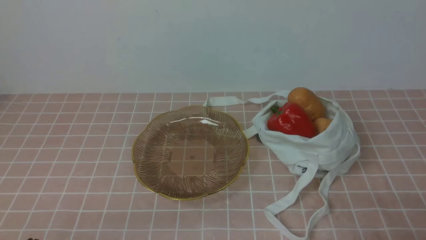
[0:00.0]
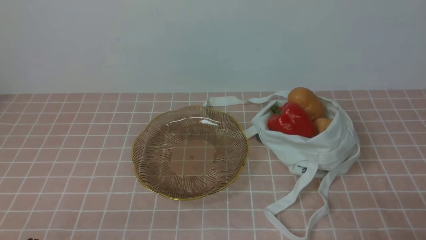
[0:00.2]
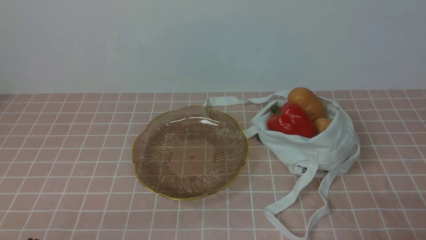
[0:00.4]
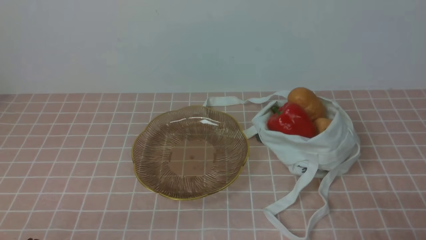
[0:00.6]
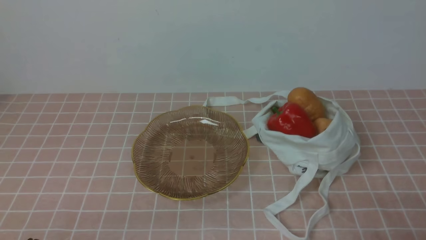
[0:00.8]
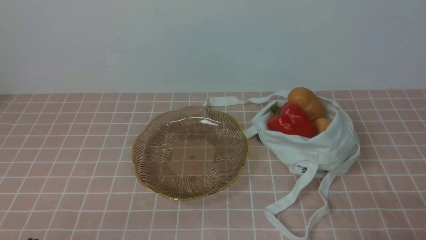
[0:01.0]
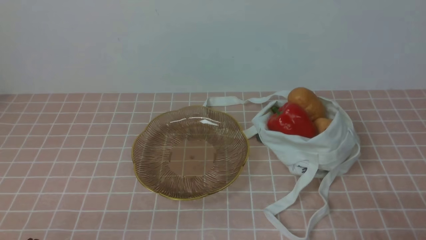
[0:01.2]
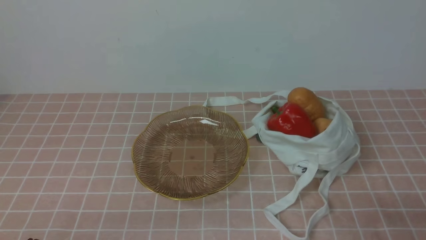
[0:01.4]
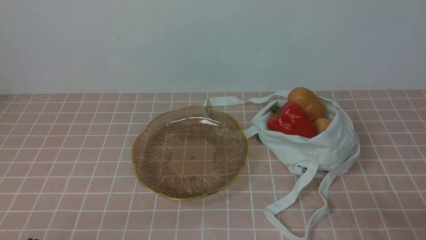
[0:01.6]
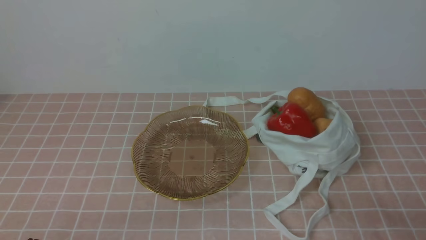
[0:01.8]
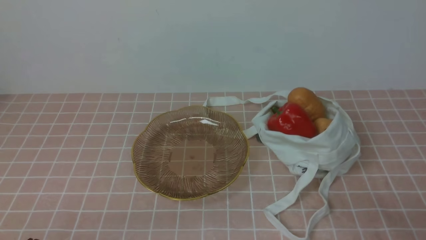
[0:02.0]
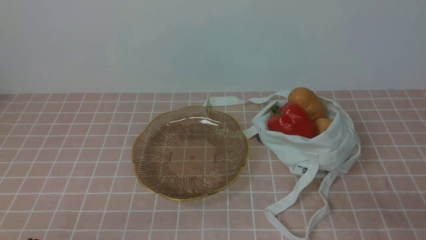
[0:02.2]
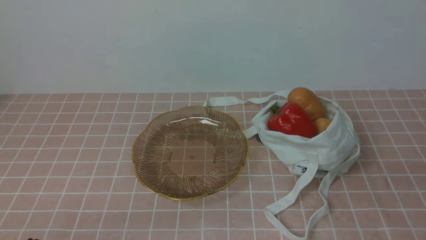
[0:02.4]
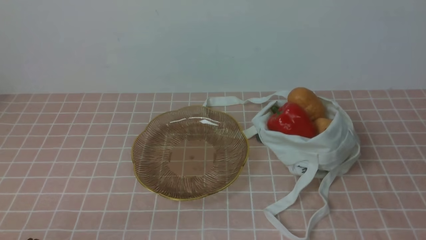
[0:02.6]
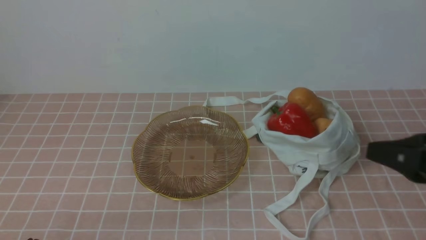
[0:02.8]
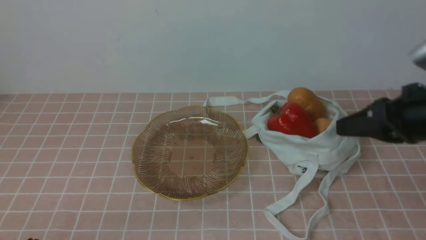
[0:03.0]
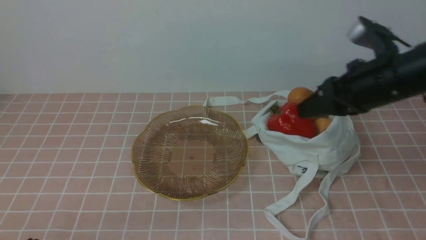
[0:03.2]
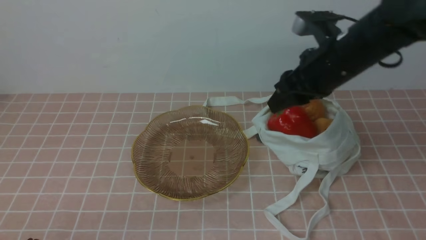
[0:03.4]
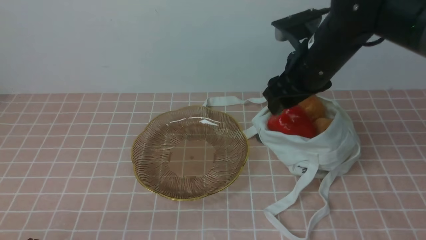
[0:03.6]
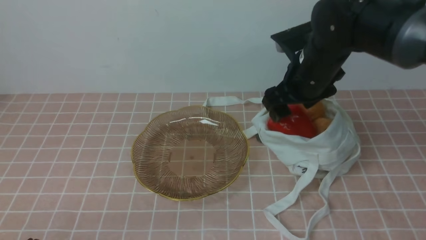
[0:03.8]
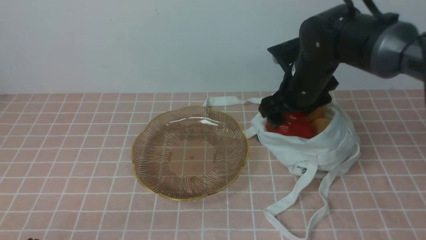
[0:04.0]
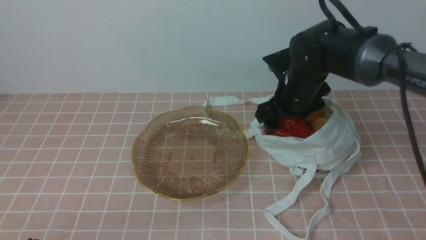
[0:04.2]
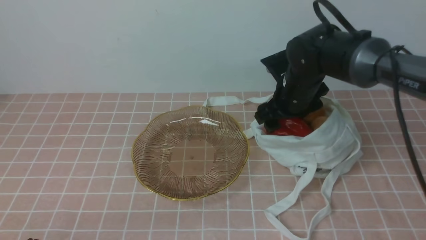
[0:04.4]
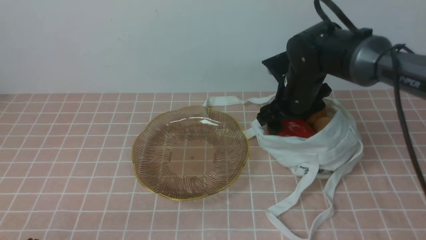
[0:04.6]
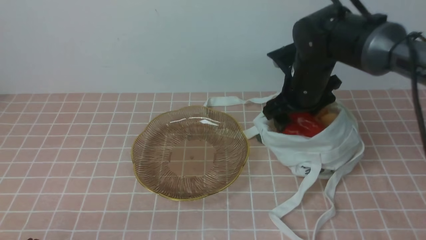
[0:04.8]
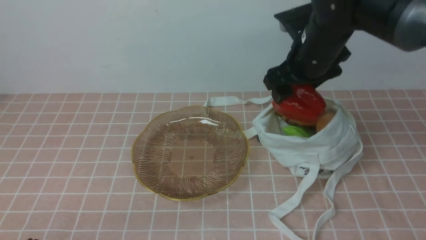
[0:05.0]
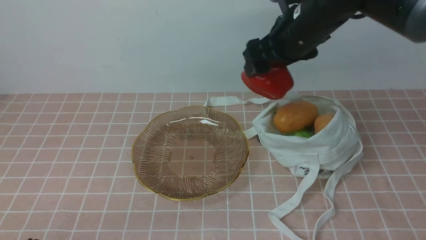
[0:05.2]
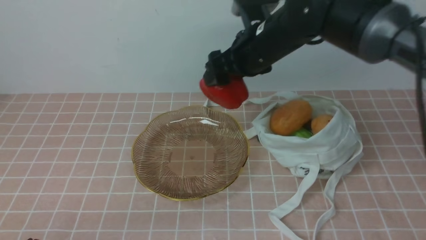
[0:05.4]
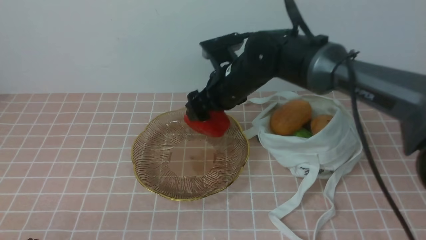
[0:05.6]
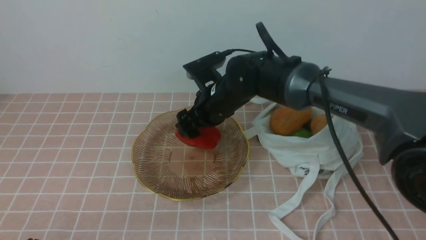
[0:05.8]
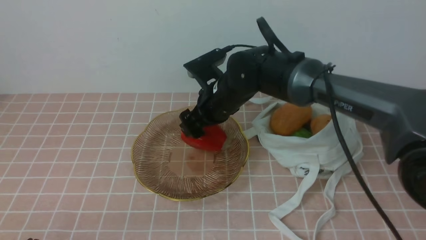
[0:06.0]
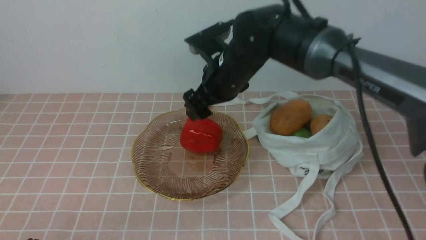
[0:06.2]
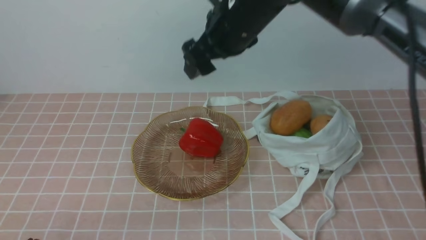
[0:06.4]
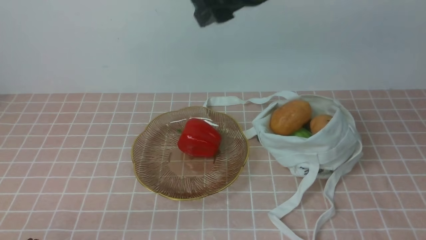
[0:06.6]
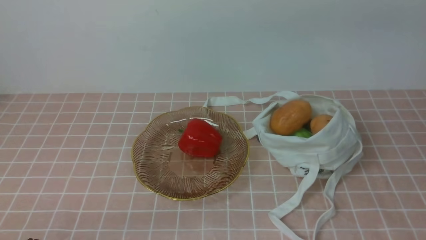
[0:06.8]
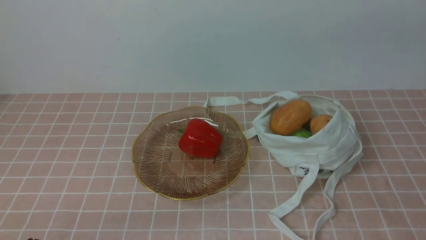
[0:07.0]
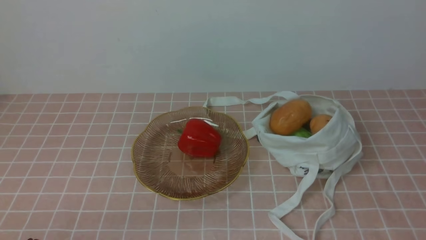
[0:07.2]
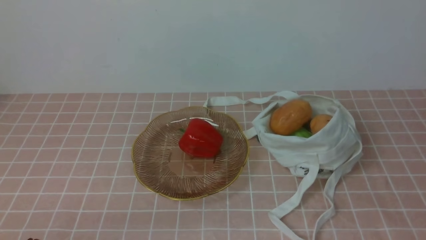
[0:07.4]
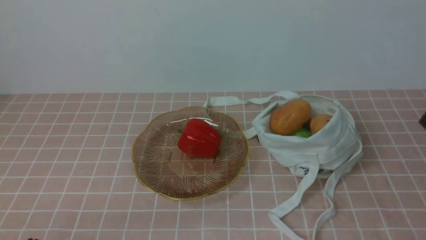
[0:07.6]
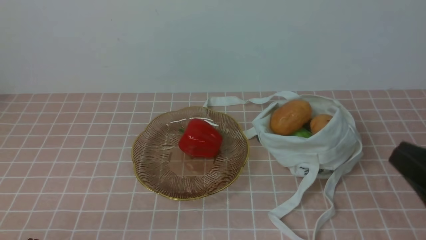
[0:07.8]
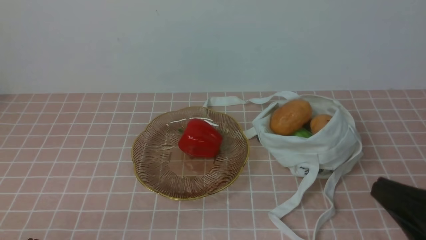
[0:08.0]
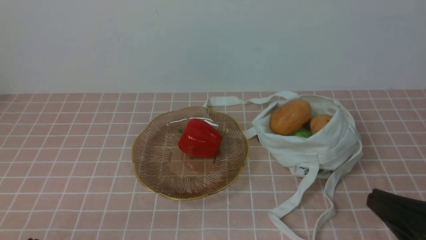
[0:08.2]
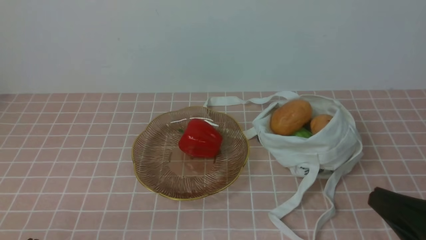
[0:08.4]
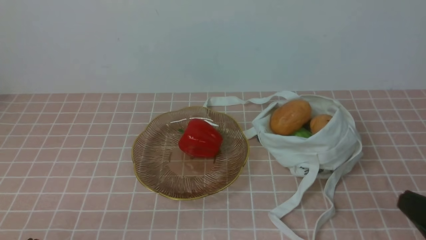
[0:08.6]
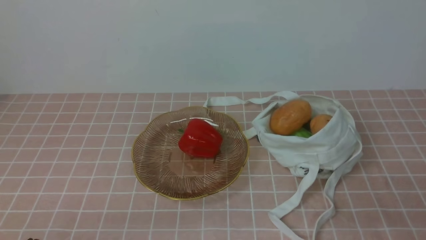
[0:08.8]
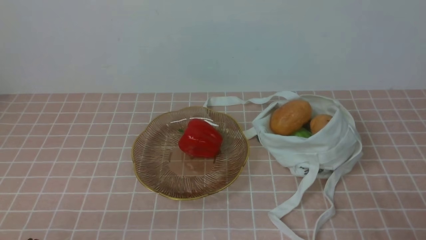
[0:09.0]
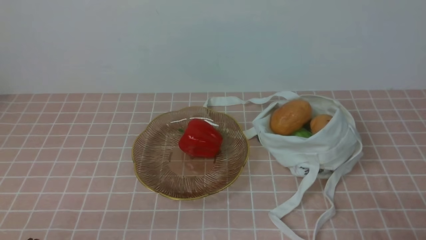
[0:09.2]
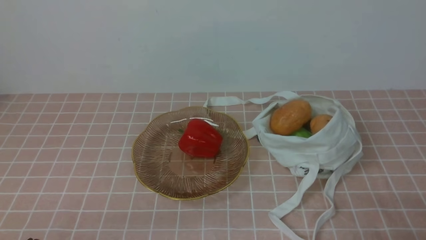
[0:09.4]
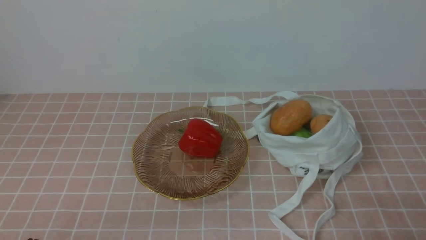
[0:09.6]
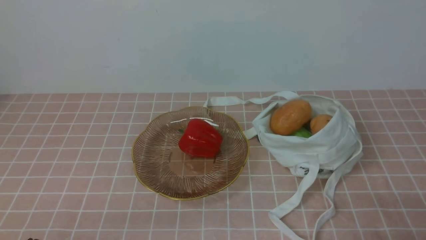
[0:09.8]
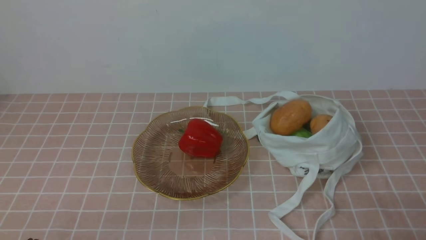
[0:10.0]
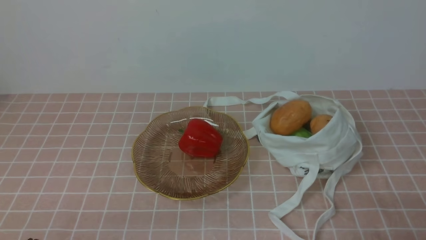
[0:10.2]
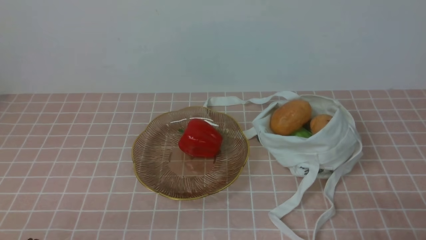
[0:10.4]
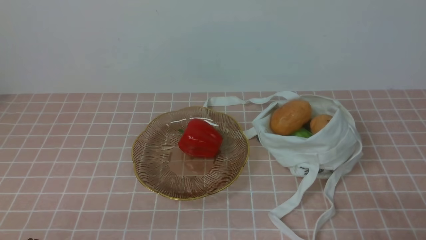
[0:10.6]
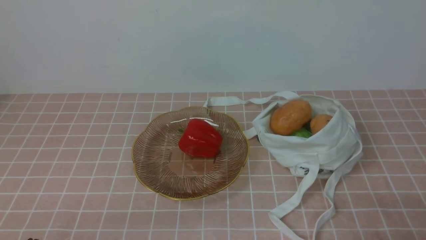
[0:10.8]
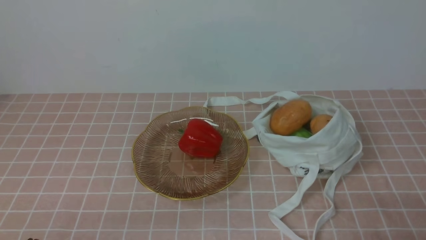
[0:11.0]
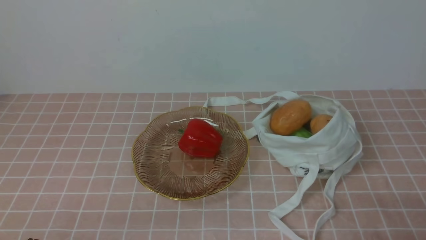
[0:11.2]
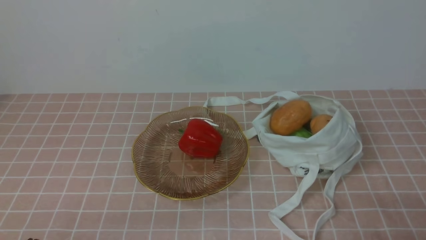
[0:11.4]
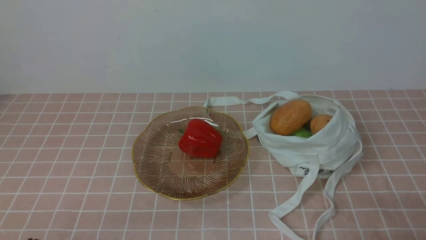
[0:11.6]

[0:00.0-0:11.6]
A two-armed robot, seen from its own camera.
Task of the whole recording: take vegetables from bag on pink coffee tablecloth place on plate.
Step, 0:00.0 to 0:04.6: Grasp the bell pepper with right gripper.
Step, 0:04.8 to 0:06.2: Place the bell pepper on the plate with right gripper.
0:01.4 to 0:02.8: The right gripper is displaced upward and forward by about 15 cm.
0:02.8 to 0:04.4: The right gripper heads forward and to the left, covering roughly 30 cm, and opens up.
0:04.4 to 0:05.8: The right gripper is displaced to the left by roughly 10 cm.
0:05.8 to 0:07.2: The right gripper goes some 50 cm upward, backward and to the right, and closes up.
0:10.2 to 0:11.6: Both grippers stay put.
